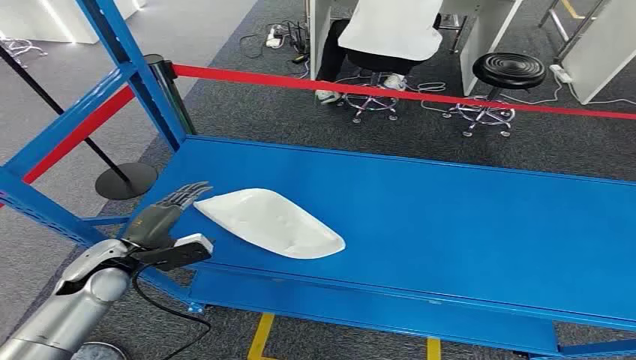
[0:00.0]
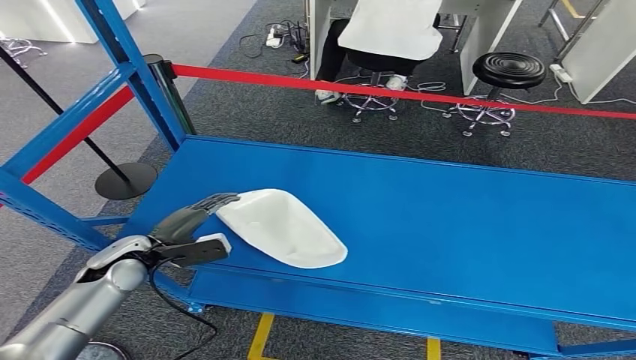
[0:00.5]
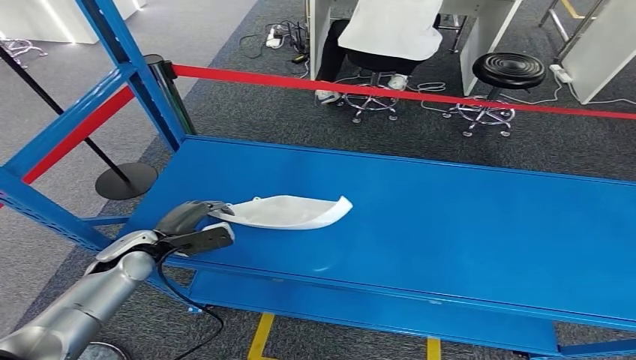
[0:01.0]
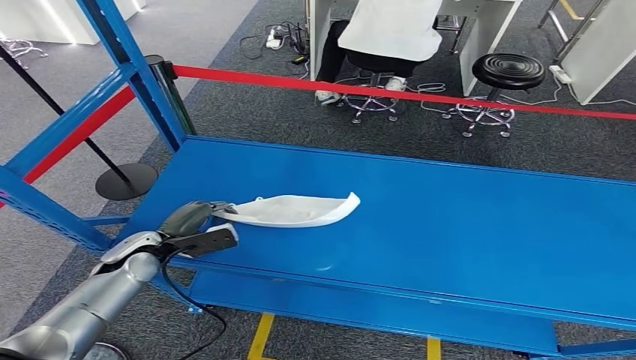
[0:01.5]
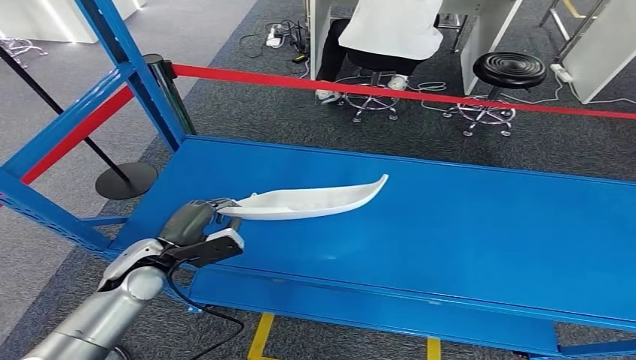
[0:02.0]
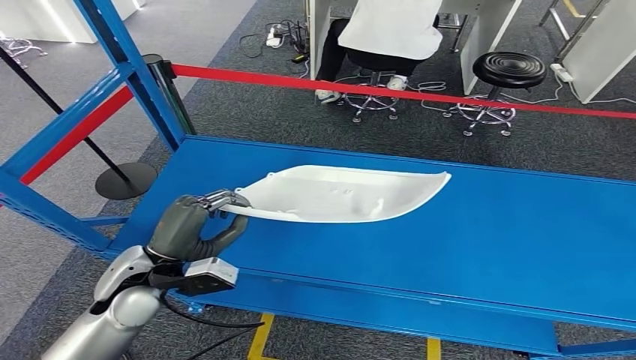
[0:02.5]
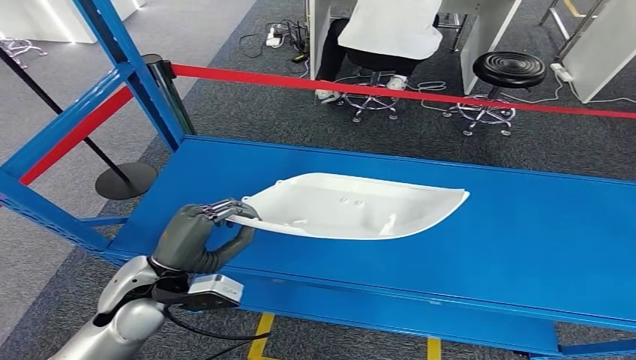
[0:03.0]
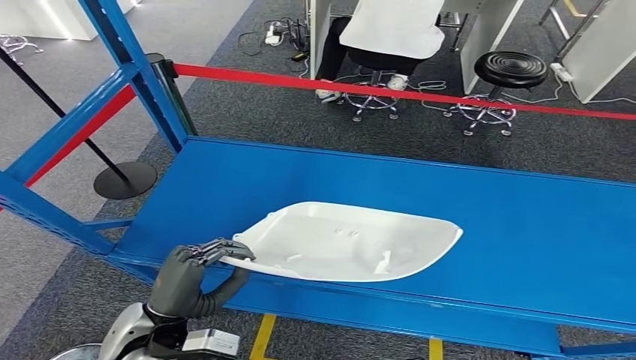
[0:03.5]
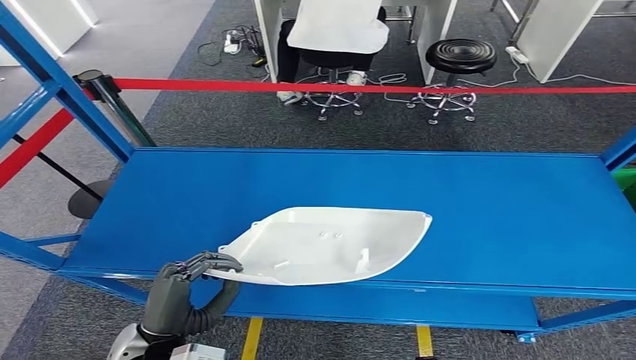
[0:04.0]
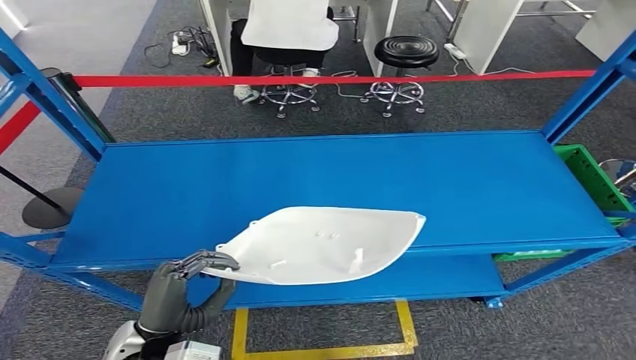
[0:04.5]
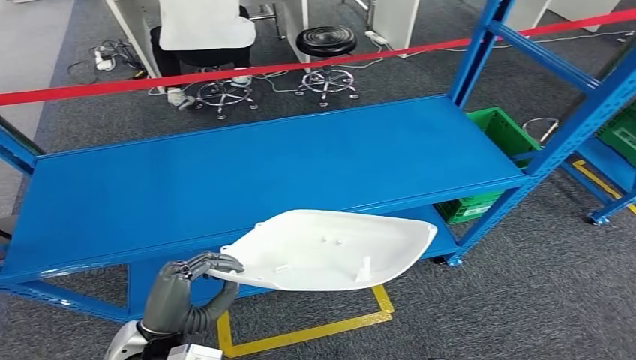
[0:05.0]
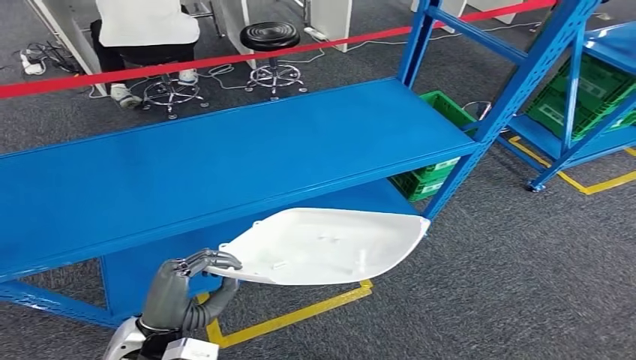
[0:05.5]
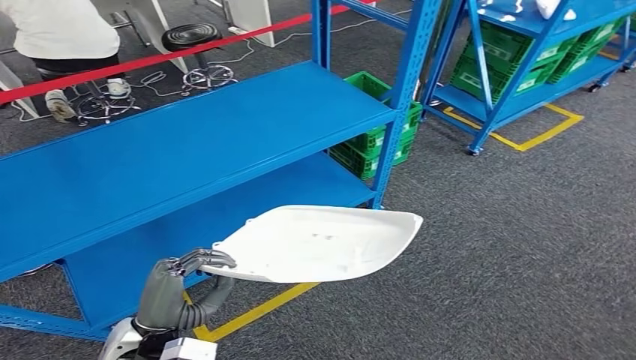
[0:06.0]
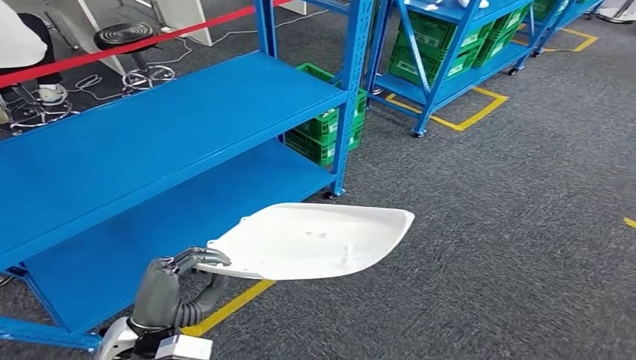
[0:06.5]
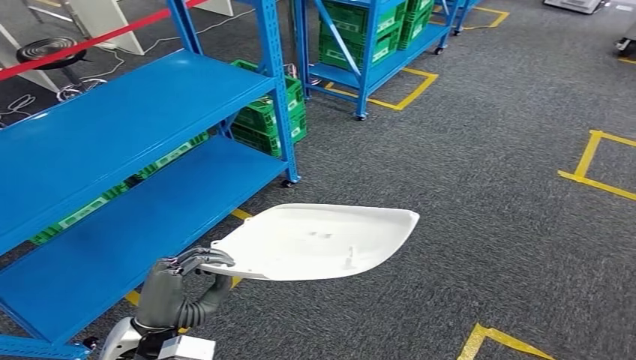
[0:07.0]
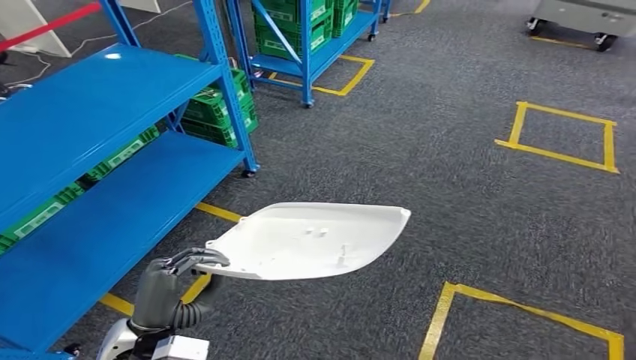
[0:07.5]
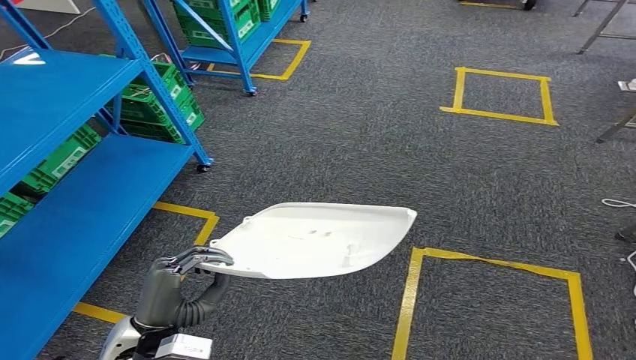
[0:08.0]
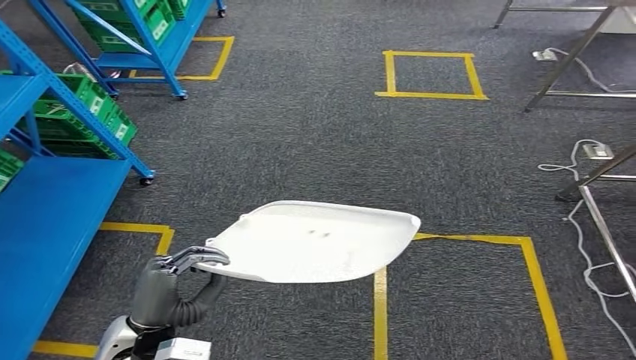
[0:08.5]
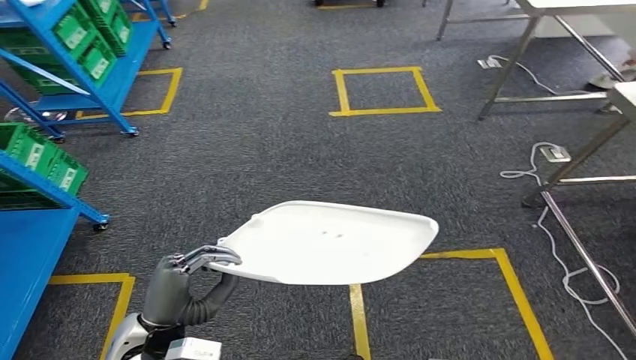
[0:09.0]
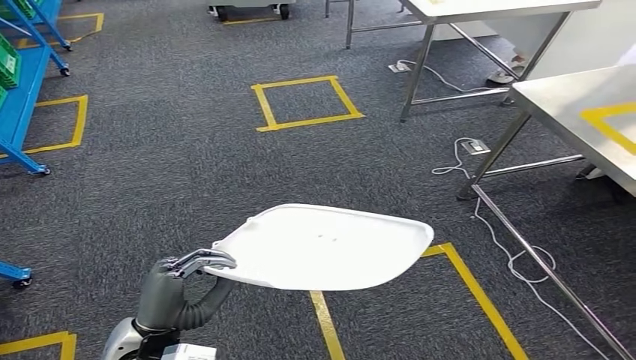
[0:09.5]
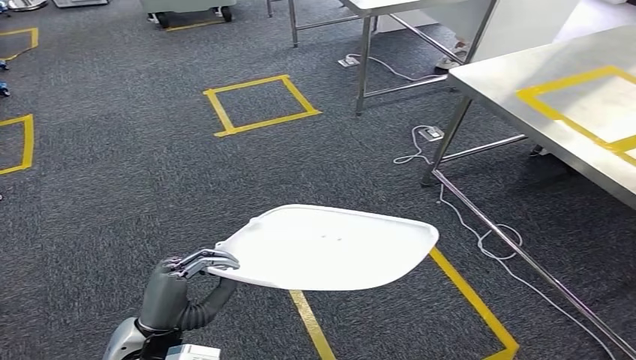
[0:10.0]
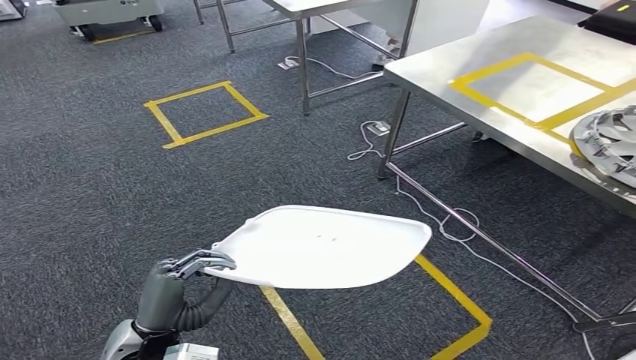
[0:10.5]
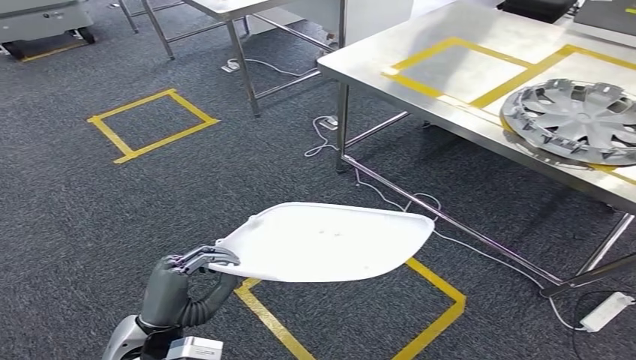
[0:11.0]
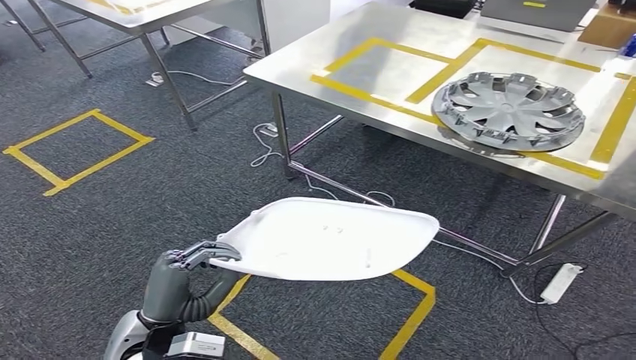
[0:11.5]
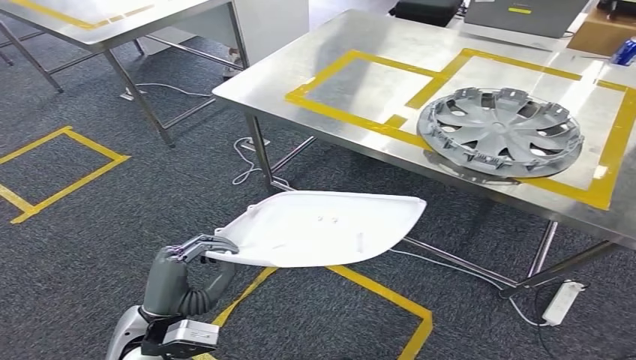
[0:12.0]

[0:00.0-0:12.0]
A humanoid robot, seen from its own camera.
Step, 0:00.0 to 0:04.0: Take small components from the rack.

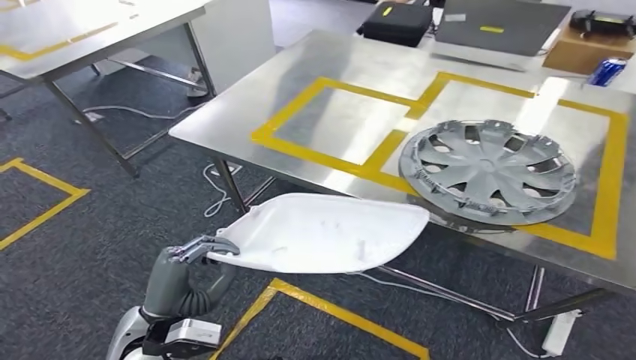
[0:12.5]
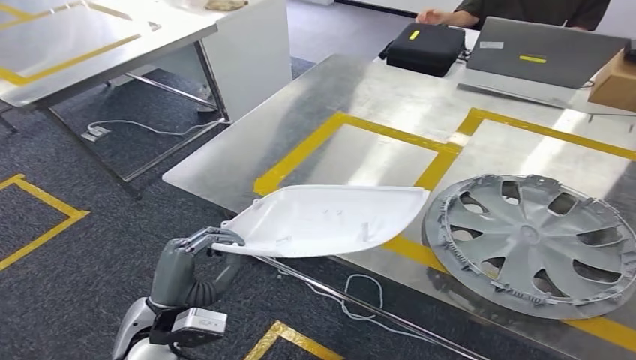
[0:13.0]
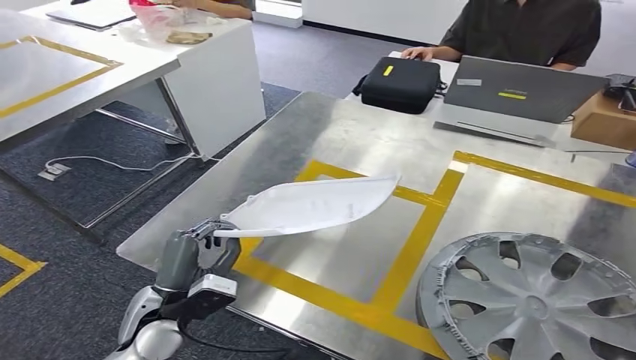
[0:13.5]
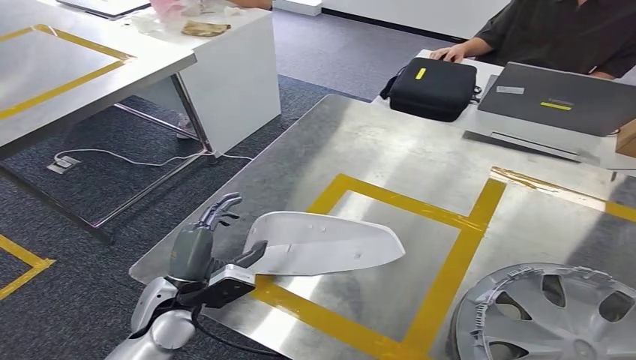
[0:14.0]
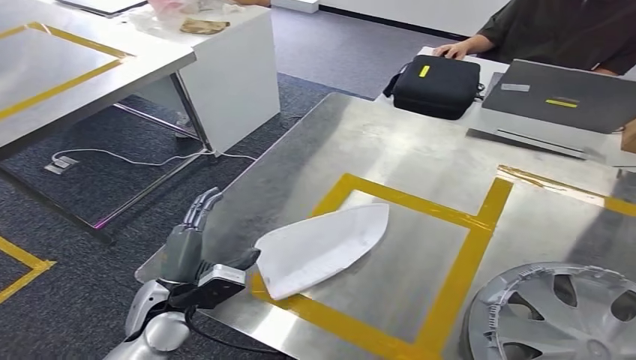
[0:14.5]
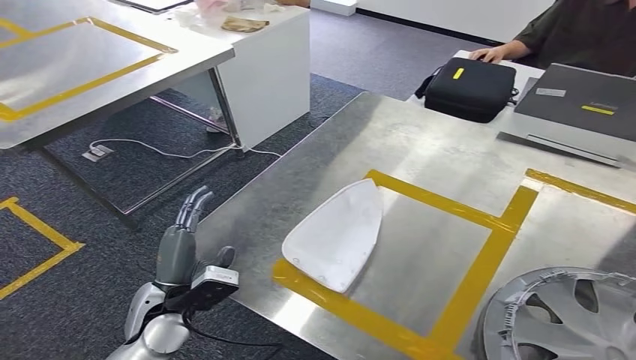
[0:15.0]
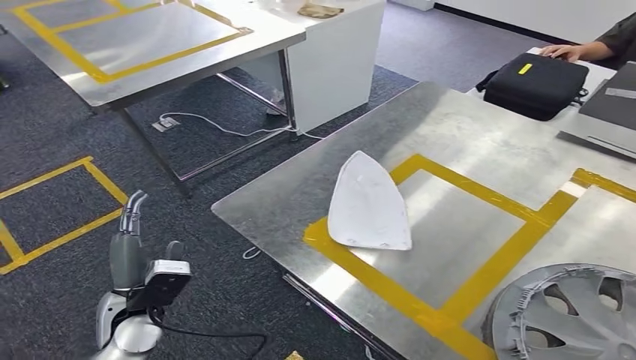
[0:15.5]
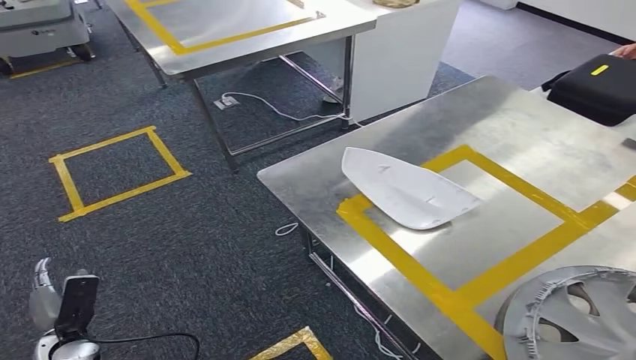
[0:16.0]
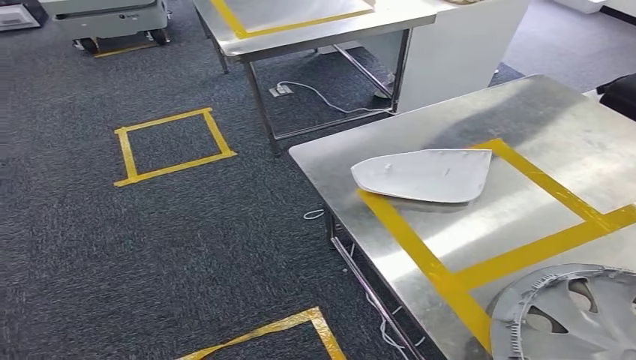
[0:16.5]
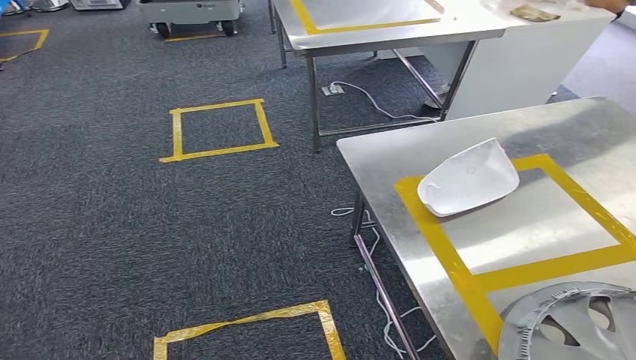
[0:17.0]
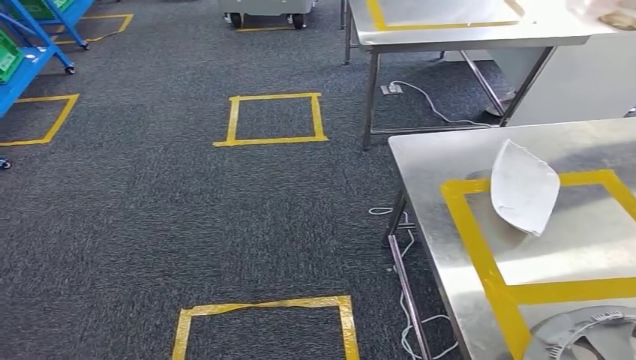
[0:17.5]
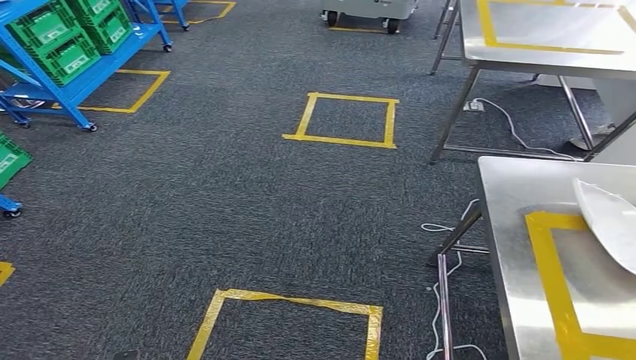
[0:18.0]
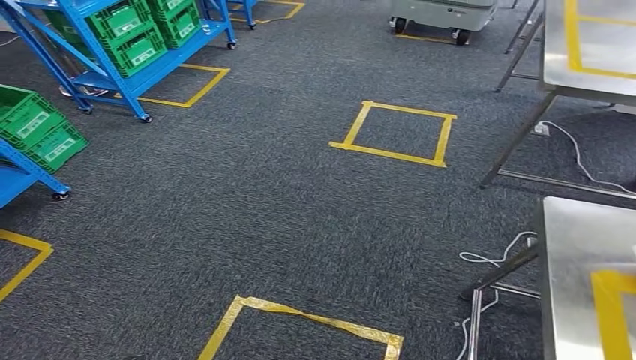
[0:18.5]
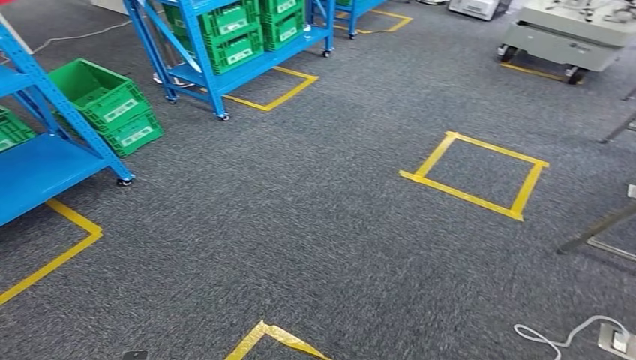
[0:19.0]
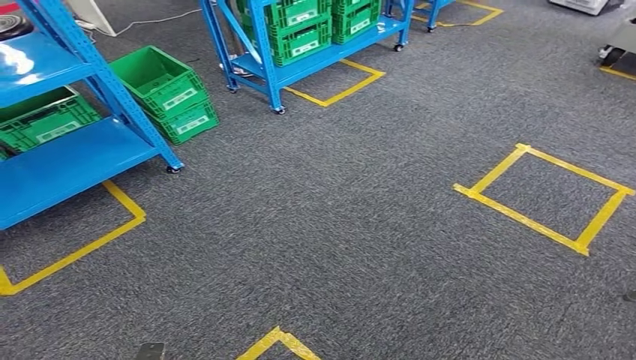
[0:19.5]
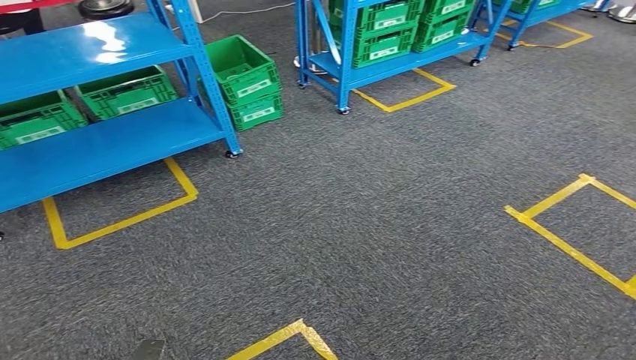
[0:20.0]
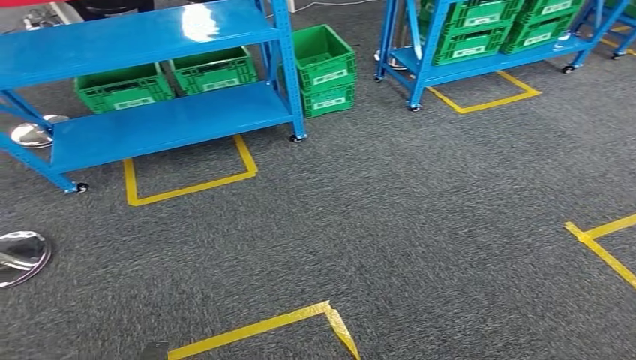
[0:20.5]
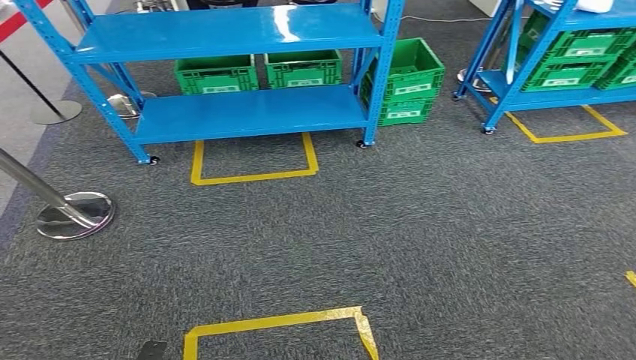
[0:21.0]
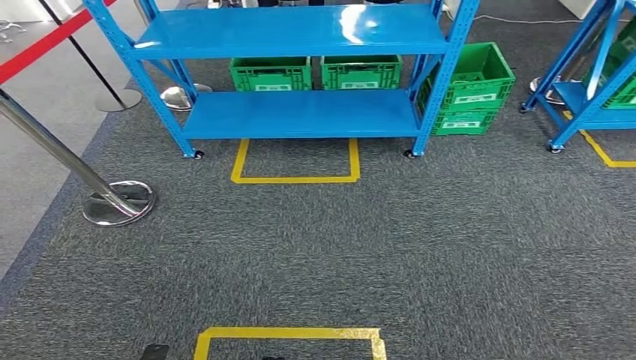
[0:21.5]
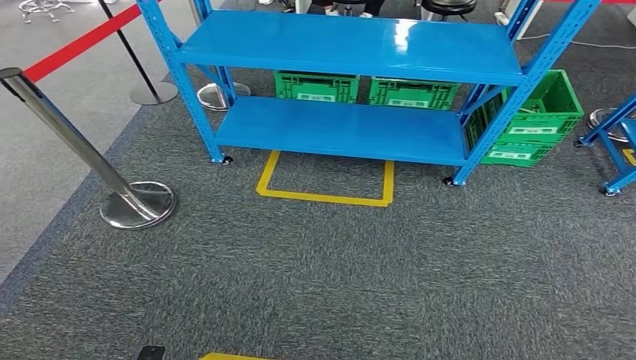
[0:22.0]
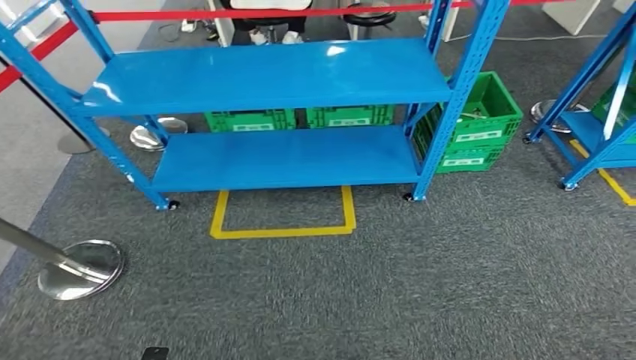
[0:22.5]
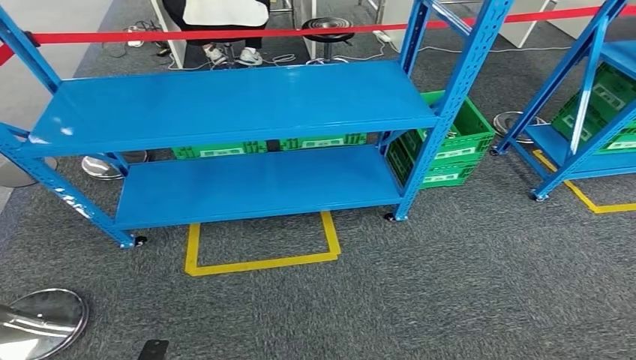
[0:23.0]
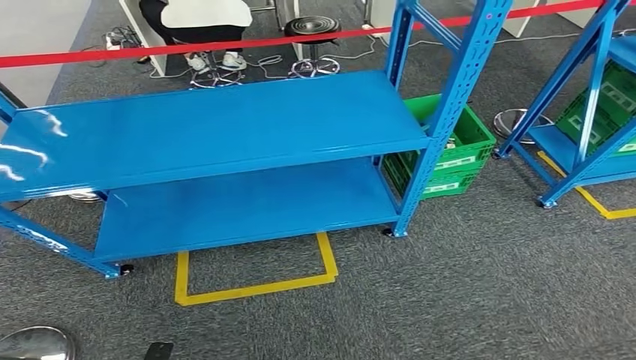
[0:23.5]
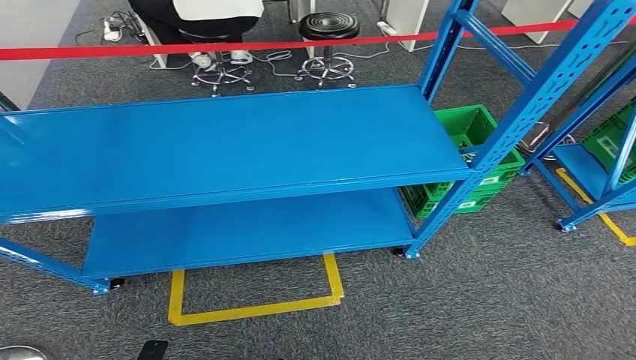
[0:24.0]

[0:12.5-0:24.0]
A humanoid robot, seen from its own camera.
Step, 0:13.5 to 0:16.0: Insert the small parts into the corresponding holes on the workbench.
Step, 0:17.0 to 0:24.0: Move to the initial position of the workbench.
